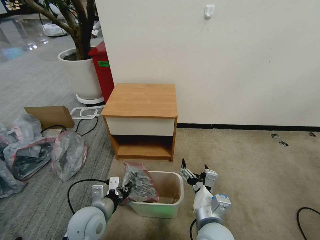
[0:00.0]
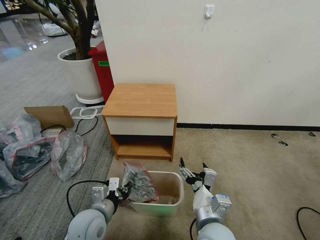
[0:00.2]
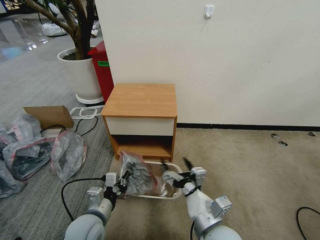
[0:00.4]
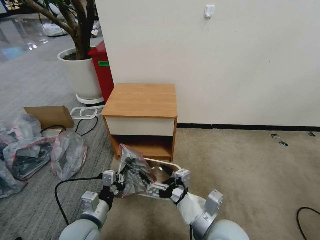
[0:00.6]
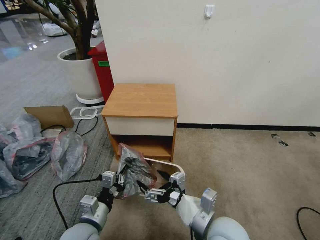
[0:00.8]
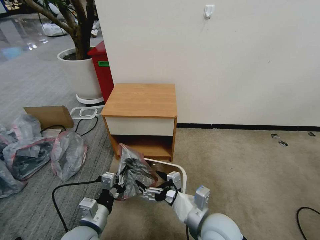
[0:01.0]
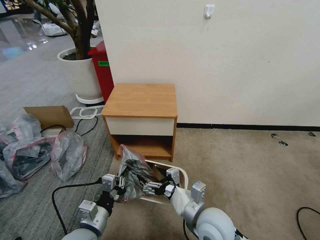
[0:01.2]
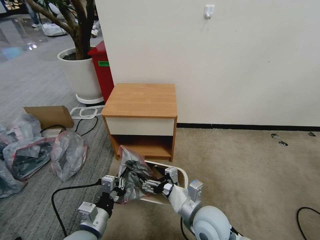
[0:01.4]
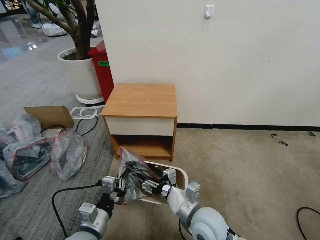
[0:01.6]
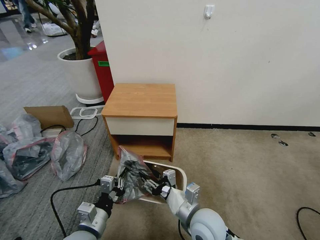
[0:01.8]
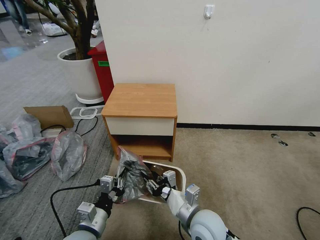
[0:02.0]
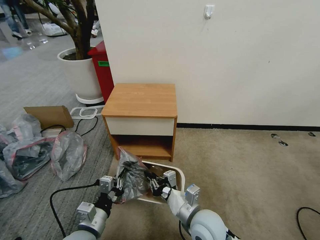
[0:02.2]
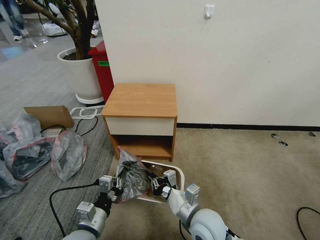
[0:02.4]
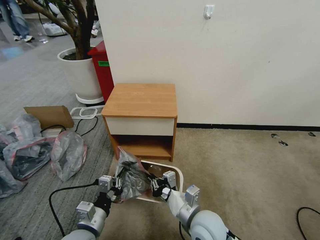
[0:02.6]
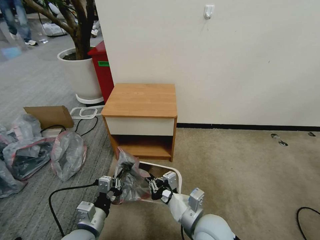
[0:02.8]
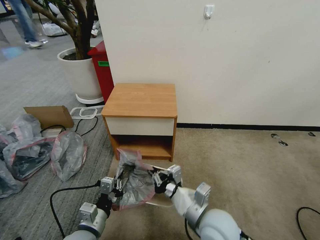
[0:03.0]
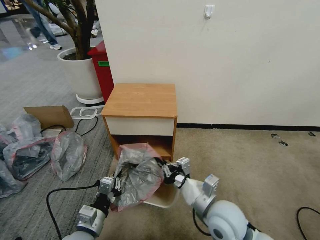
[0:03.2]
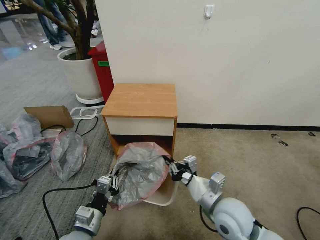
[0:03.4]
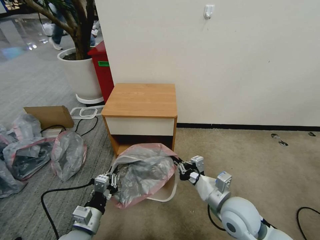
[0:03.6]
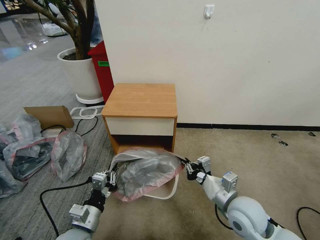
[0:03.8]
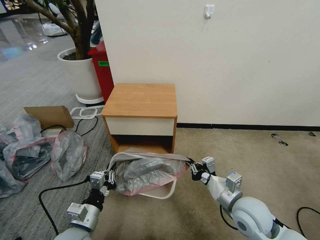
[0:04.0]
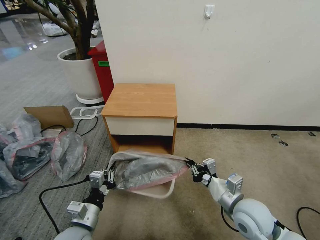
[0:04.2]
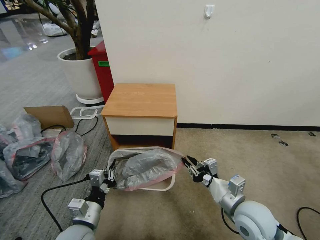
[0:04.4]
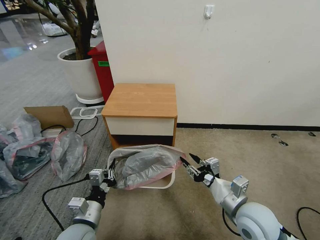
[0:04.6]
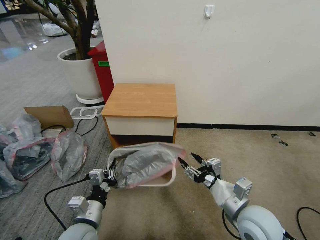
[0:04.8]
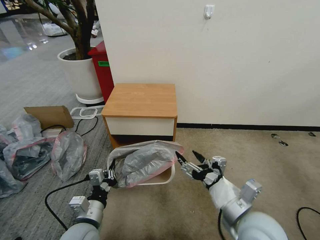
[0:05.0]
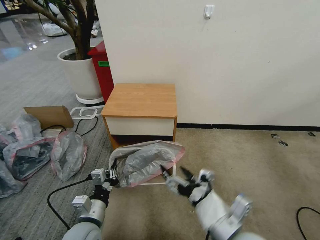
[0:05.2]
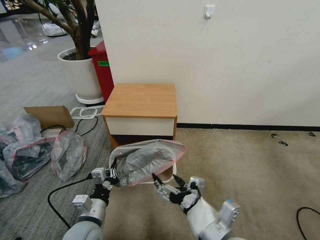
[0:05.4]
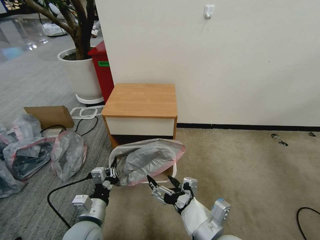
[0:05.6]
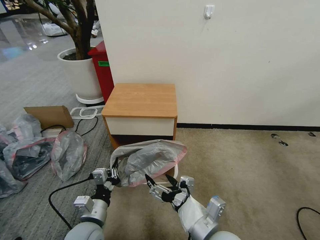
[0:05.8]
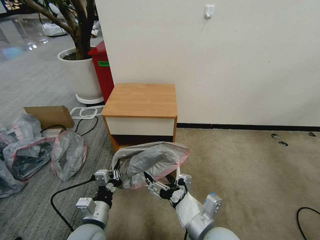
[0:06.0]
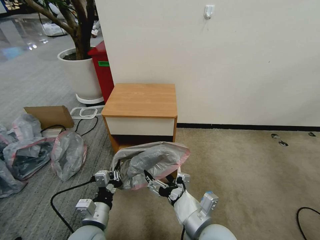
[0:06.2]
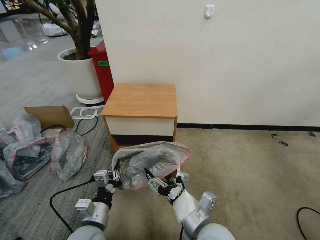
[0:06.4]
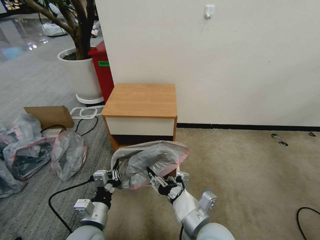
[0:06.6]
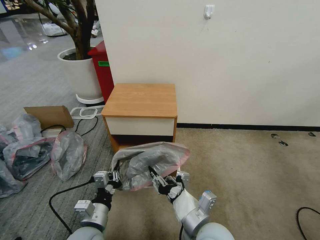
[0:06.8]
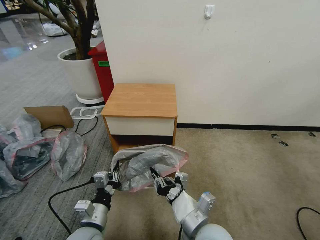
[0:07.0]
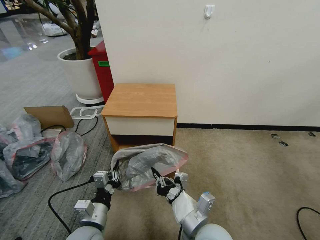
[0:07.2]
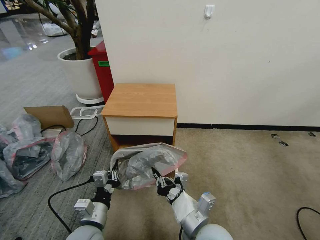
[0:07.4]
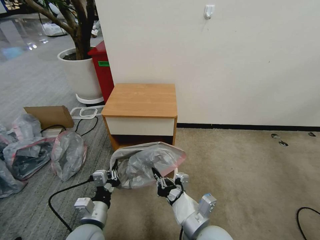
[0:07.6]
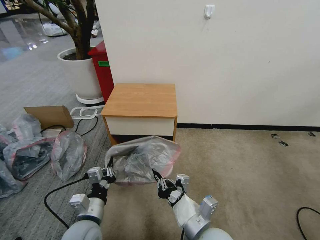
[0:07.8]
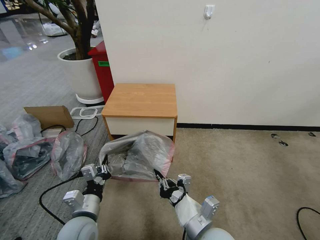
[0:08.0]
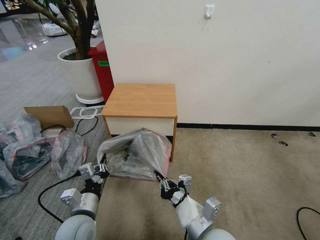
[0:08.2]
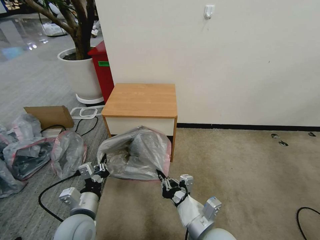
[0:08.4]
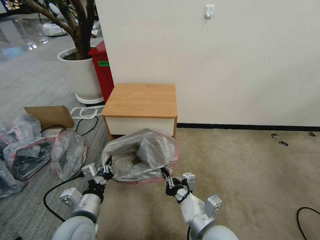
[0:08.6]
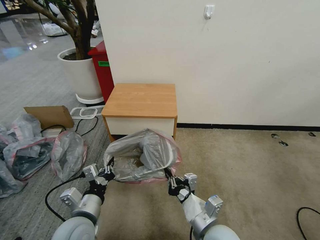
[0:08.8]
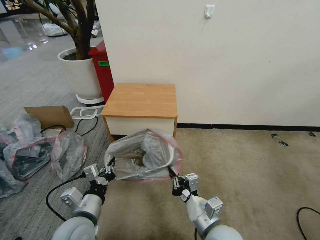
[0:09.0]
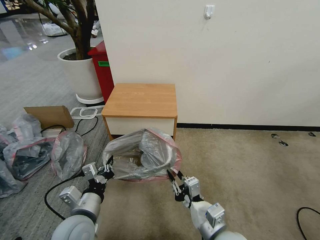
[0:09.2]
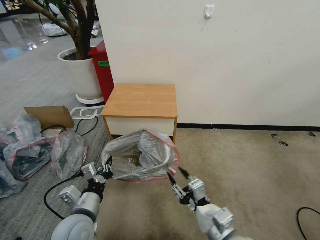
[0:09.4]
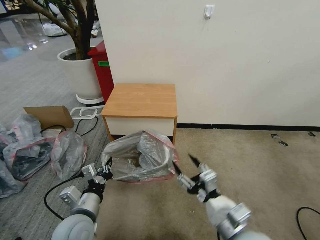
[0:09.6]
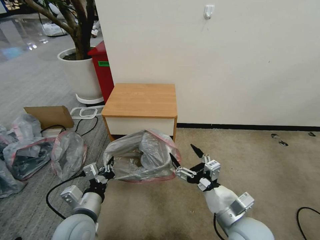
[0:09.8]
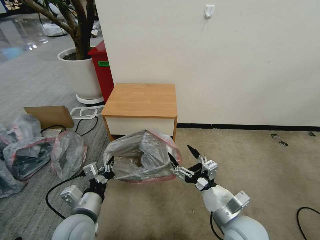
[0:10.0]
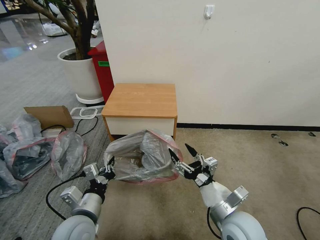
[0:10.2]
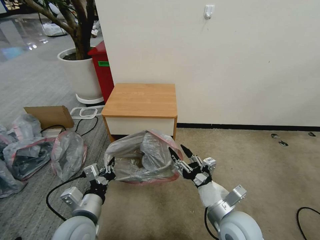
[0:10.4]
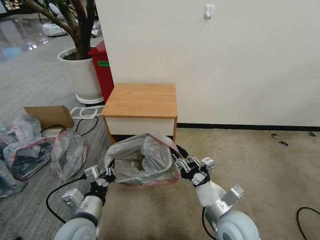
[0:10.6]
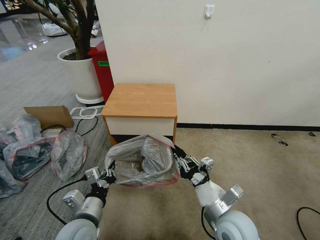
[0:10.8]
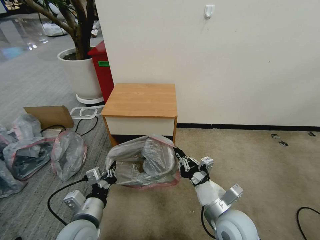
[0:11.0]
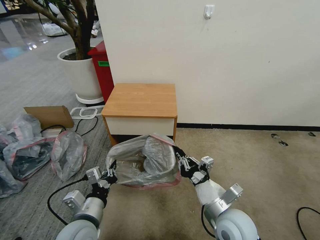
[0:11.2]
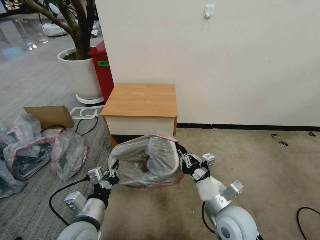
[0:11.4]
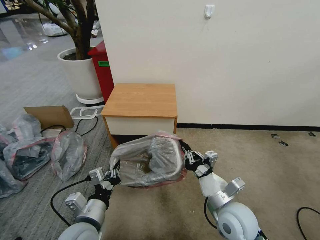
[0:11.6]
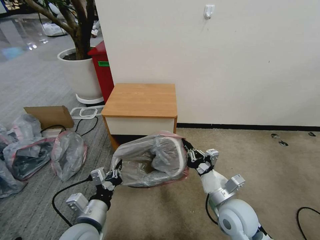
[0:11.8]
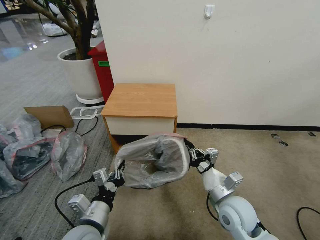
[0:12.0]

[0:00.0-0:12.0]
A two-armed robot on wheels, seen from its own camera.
Task of the whole recording: Pick up the garbage bag from the table and place it over the trash can.
0:00.0 to 0:01.6: The left gripper goes roughly 5 cm backward.
0:01.6 to 0:03.0: The right gripper closes up.
0:03.0 to 0:04.4: The right gripper shifts some 10 cm to the right.
0:04.4 to 0:06.0: The right gripper is displaced to the left and backward by about 15 cm, and opens up.
0:06.0 to 0:07.6: The right gripper closes.
0:07.6 to 0:09.0: The right gripper changes place by about 5 cm. The left gripper moves upward, about 5 cm.
0:09.0 to 0:10.4: The right gripper changes place by about 5 cm, and opens.
0:10.4 to 0:12.0: The right gripper closes its fingers.

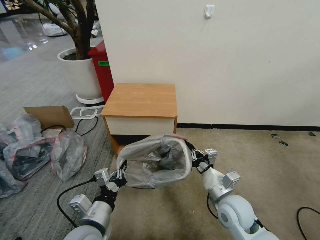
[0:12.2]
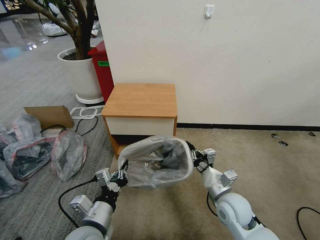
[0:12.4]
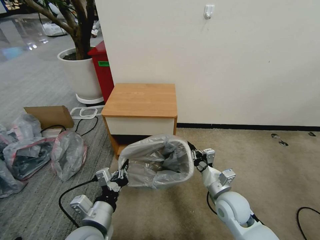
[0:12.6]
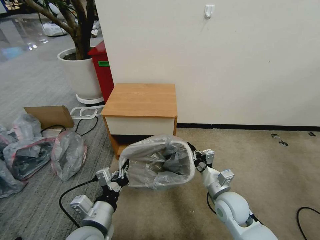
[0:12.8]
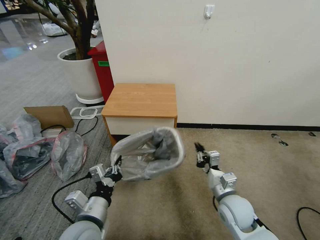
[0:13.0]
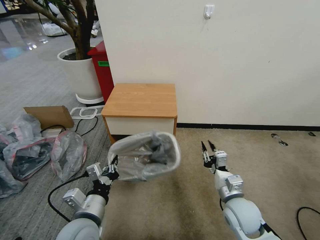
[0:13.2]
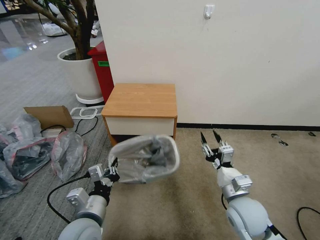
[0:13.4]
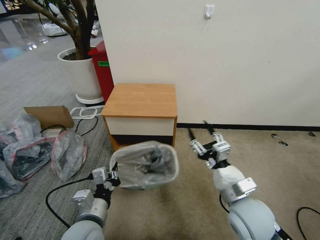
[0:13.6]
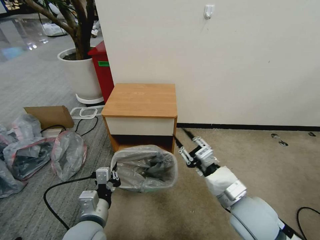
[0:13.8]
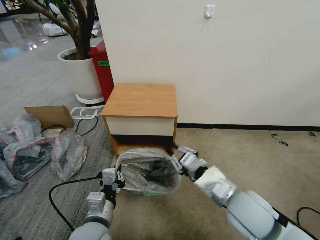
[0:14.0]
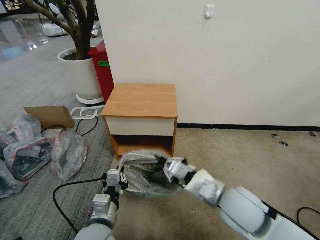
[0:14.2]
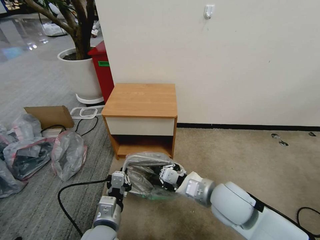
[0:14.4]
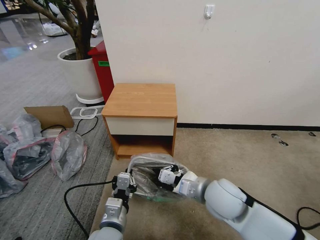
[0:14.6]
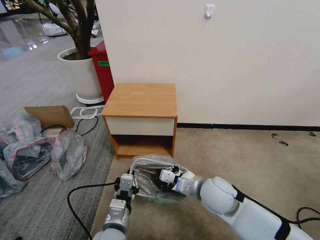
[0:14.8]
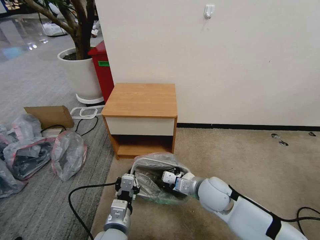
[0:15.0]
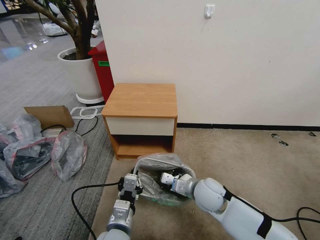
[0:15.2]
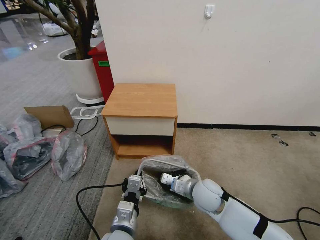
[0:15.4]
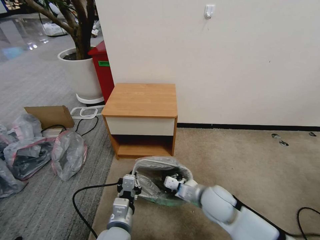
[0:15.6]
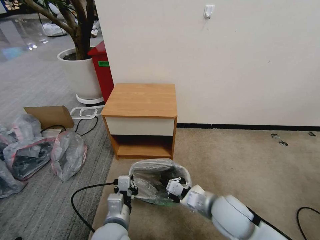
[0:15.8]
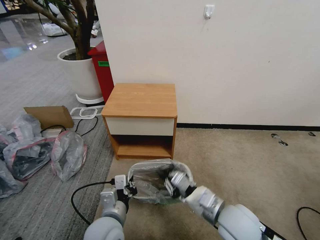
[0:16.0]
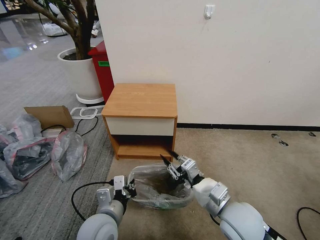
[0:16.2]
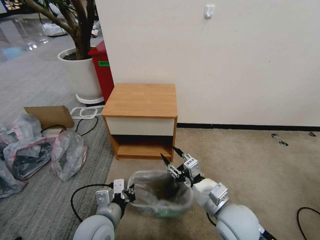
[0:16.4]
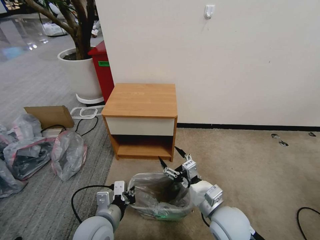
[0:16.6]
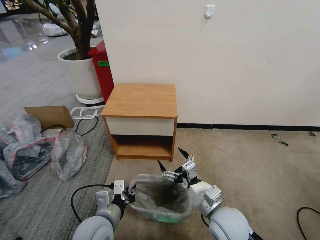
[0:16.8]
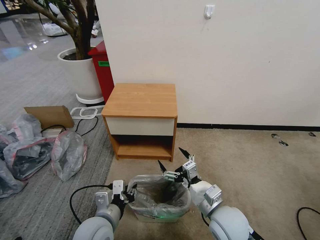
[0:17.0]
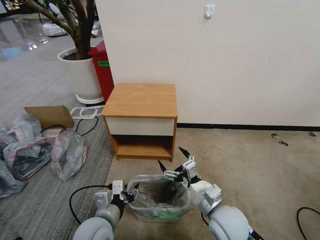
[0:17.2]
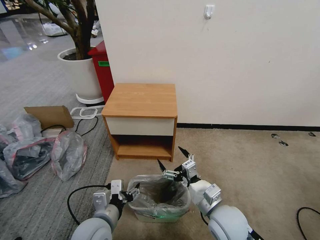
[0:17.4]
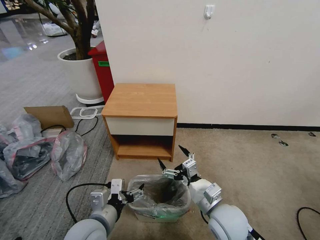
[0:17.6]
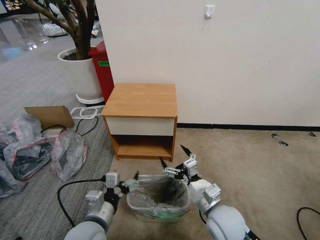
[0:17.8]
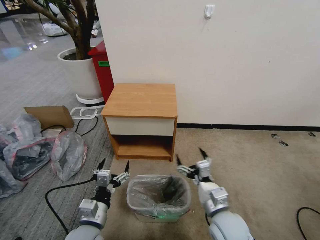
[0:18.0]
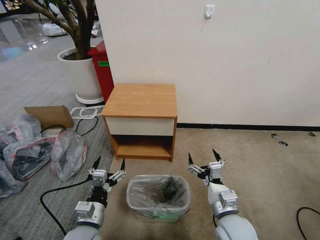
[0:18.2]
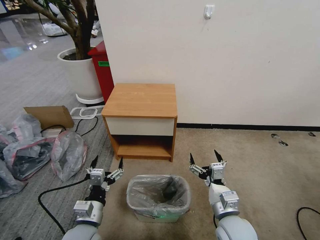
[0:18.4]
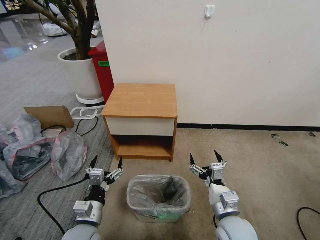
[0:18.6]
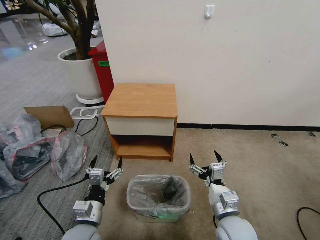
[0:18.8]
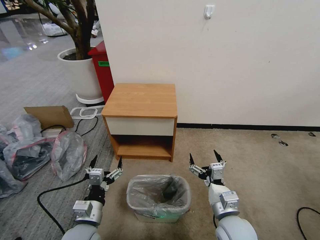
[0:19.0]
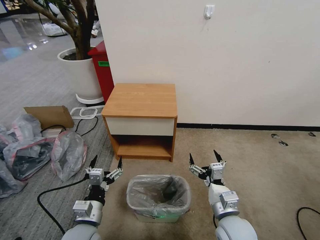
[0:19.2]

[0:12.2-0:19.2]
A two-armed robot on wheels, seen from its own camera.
Task of the whole recording: Pick up the garbage bag from the table and place it over the trash can.
0:12.2 to 0:13.6: The right gripper travels upward by approximately 10 cm, and opens up.
0:13.6 to 0:15.0: The left gripper travels to the right by about 5 cm. The right gripper heads forward, downward and to the left, covering about 10 cm, and closes its fingers.
0:15.0 to 0:16.4: The right gripper is displaced backward by about 10 cm, and opens its fingers. The left gripper moves some 5 cm.
0:16.4 to 0:17.8: The right gripper opens up. Meanwhile the left gripper opens up.
0:17.8 to 0:19.2: The left gripper moves downward, approximately 5 cm.

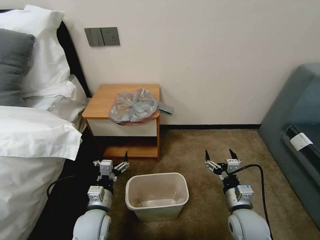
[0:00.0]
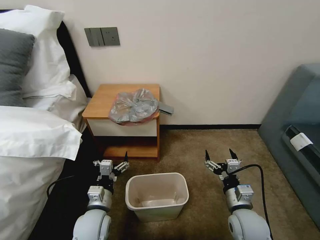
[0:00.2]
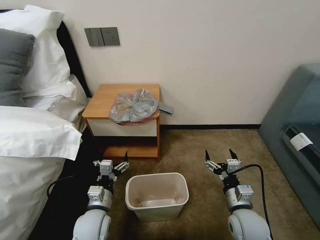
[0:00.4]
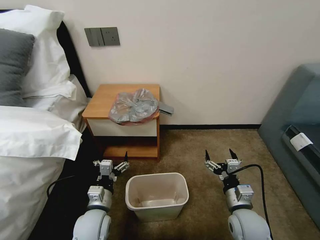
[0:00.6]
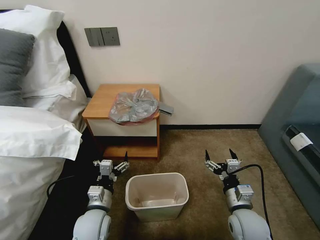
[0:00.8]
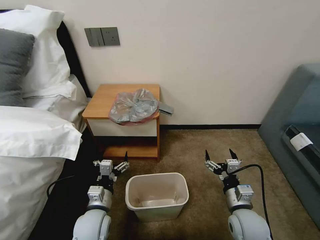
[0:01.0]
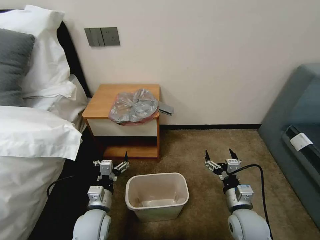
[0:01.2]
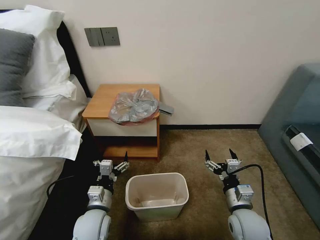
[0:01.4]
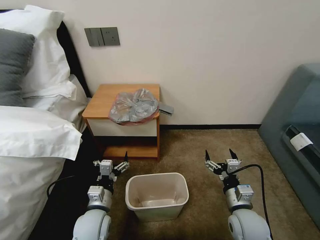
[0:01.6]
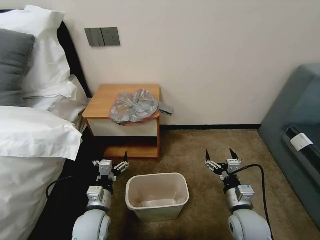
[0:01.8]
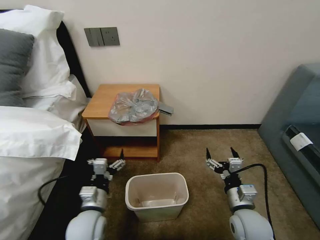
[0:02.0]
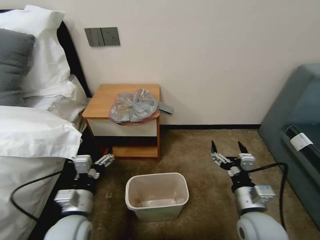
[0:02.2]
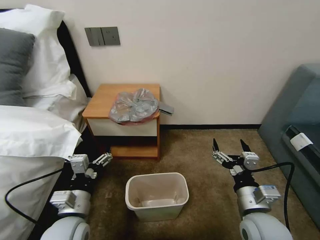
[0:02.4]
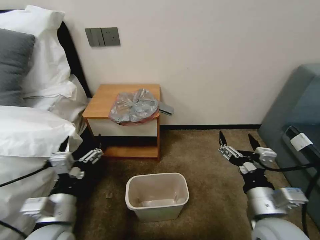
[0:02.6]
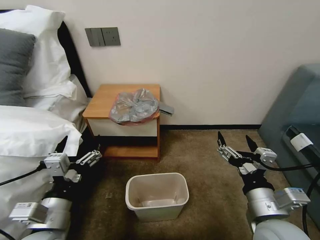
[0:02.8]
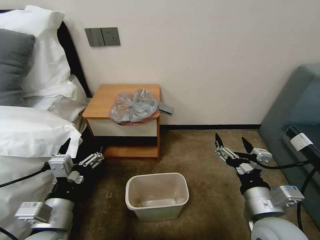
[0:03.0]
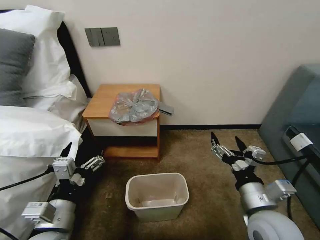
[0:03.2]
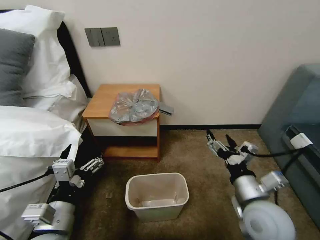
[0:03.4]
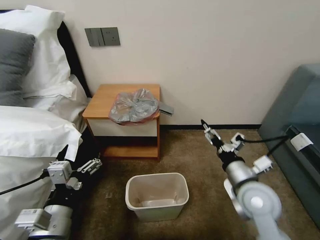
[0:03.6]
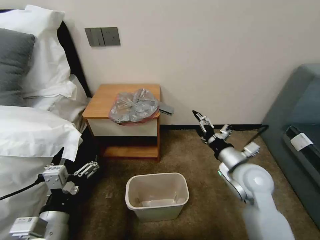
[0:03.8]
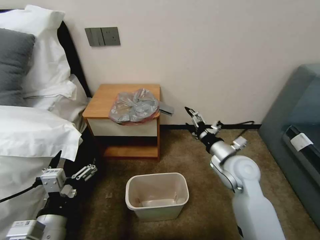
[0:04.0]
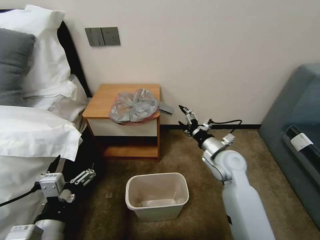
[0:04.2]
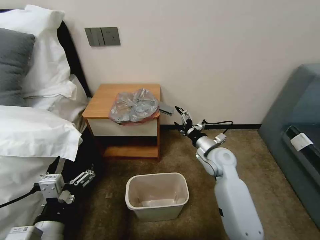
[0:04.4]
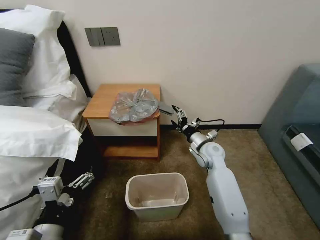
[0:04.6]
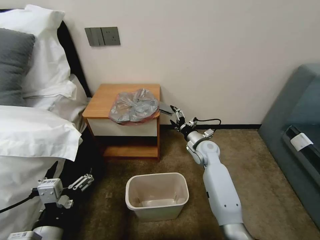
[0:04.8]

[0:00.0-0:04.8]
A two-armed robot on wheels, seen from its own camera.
Task of the whole recording: Pick up the garbage bag from the table and place it over the trash can.
0:01.6 to 0:03.2: The left gripper travels upward and backward by some 15 cm; the right gripper goes roughly 10 cm upward.
0:03.2 to 0:04.8: The left gripper travels backward by roughly 5 cm, while the right gripper travels forward by approximately 30 cm.
